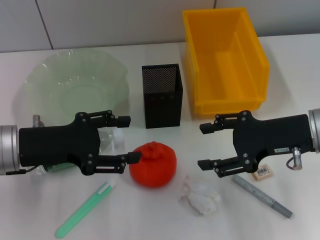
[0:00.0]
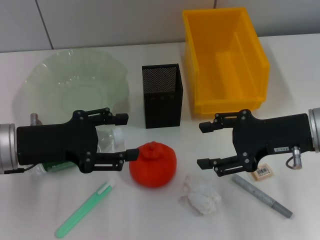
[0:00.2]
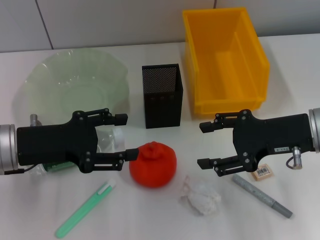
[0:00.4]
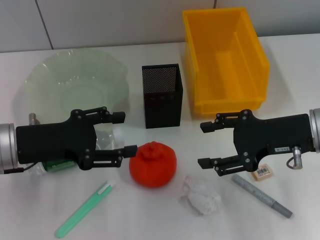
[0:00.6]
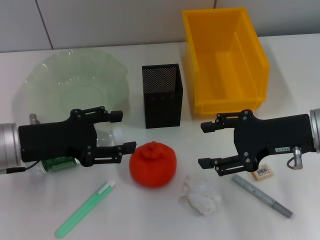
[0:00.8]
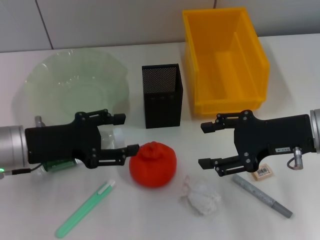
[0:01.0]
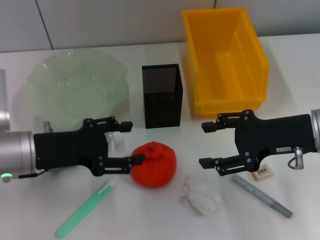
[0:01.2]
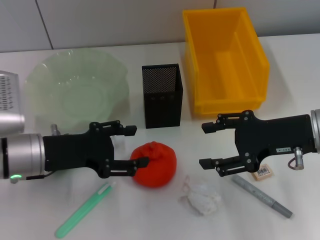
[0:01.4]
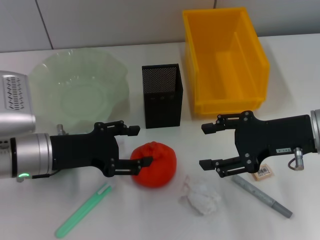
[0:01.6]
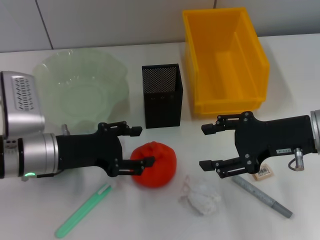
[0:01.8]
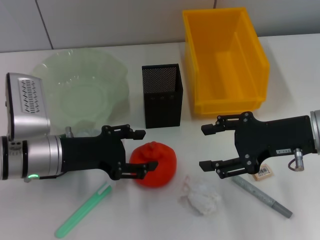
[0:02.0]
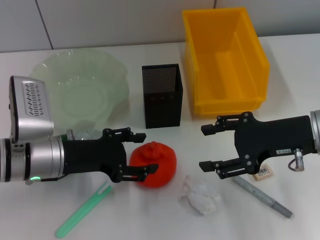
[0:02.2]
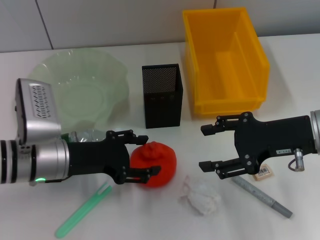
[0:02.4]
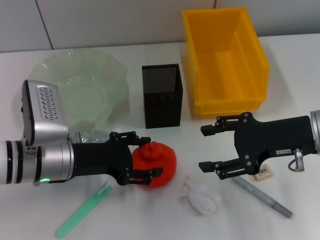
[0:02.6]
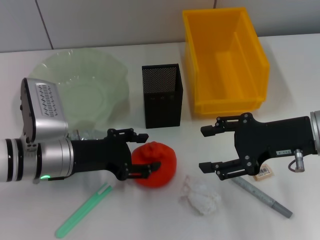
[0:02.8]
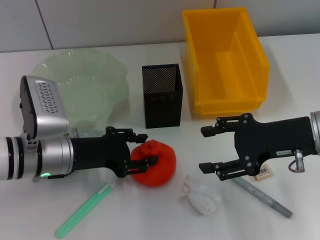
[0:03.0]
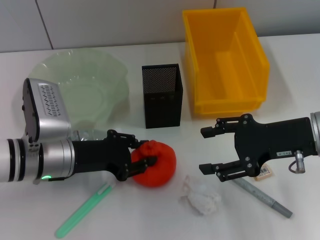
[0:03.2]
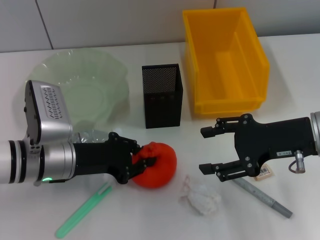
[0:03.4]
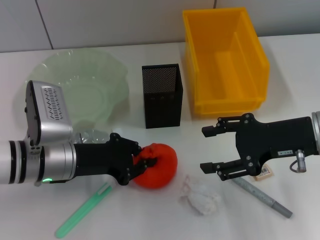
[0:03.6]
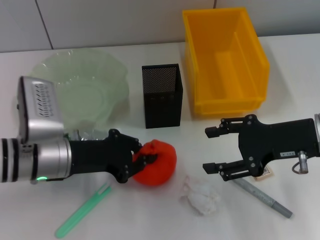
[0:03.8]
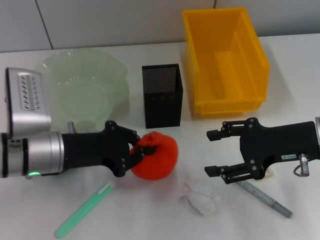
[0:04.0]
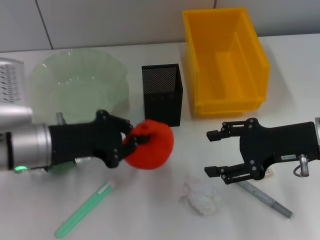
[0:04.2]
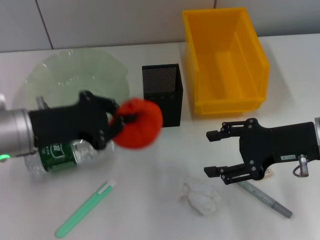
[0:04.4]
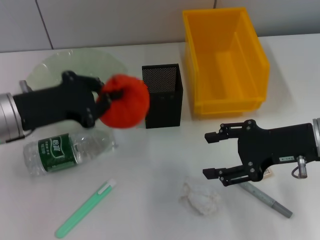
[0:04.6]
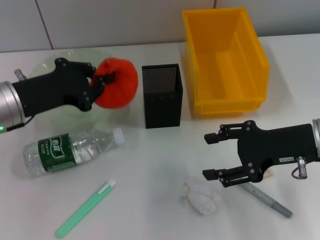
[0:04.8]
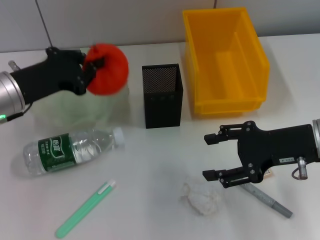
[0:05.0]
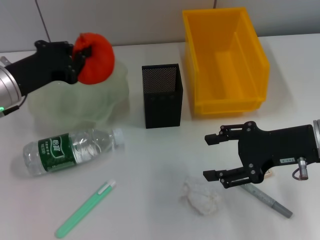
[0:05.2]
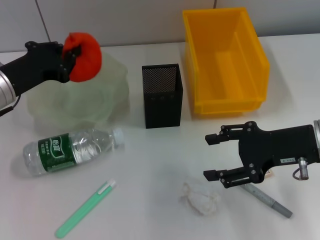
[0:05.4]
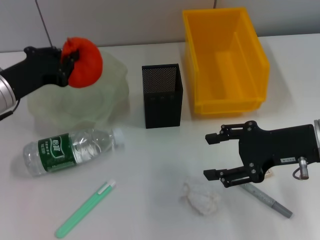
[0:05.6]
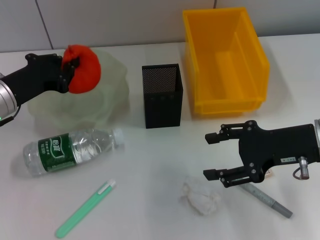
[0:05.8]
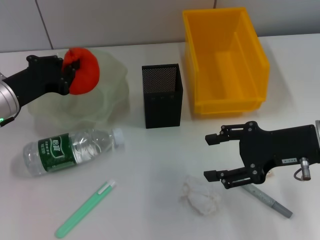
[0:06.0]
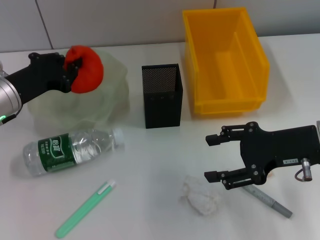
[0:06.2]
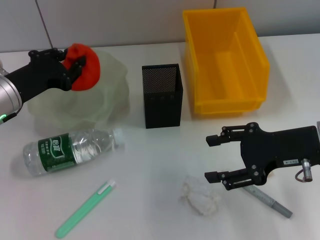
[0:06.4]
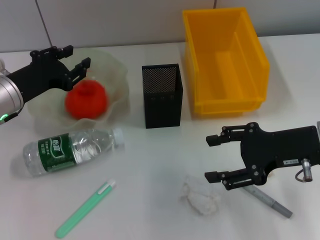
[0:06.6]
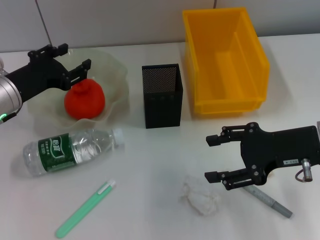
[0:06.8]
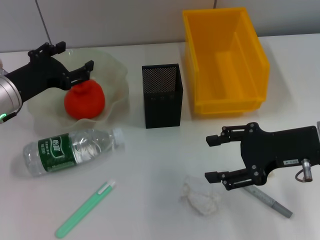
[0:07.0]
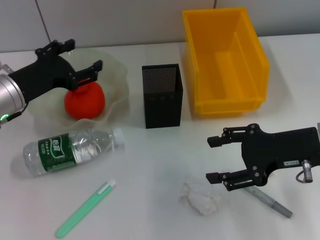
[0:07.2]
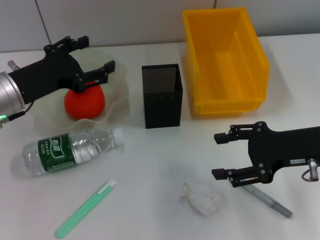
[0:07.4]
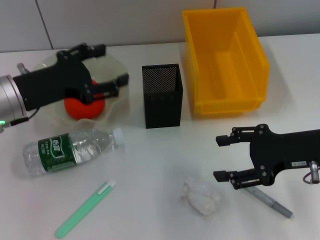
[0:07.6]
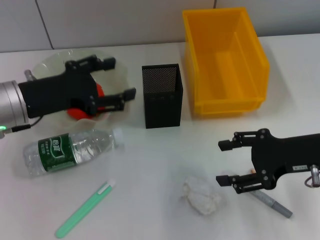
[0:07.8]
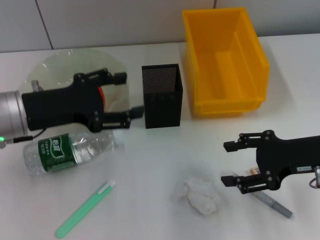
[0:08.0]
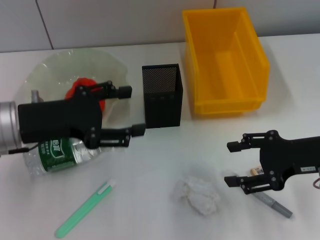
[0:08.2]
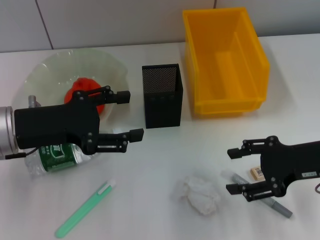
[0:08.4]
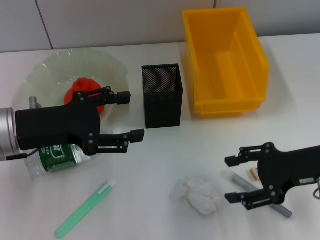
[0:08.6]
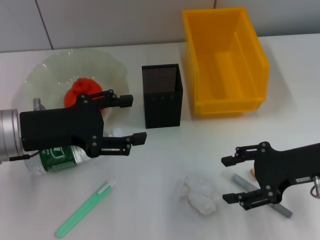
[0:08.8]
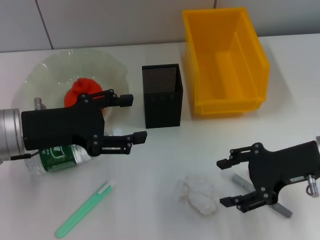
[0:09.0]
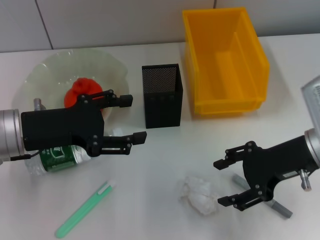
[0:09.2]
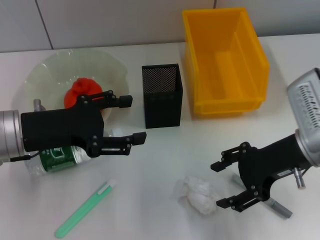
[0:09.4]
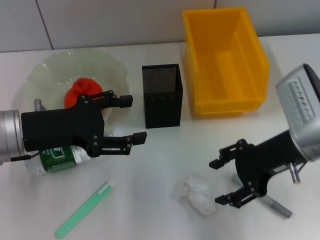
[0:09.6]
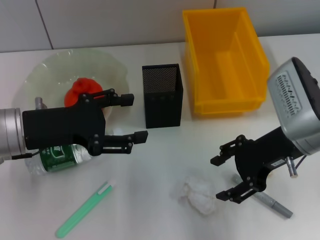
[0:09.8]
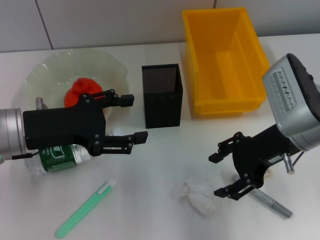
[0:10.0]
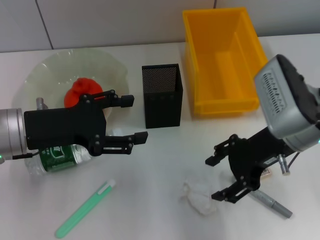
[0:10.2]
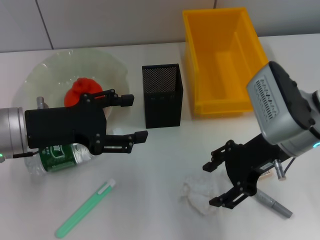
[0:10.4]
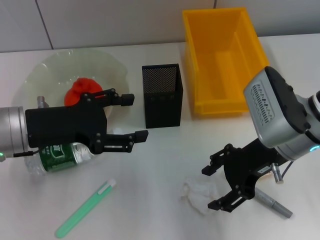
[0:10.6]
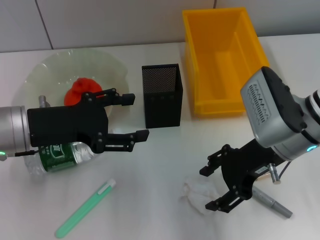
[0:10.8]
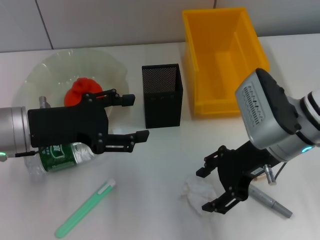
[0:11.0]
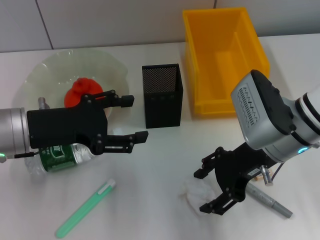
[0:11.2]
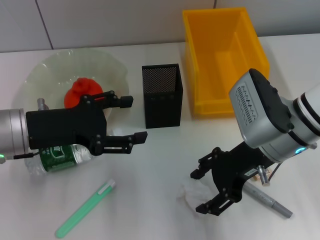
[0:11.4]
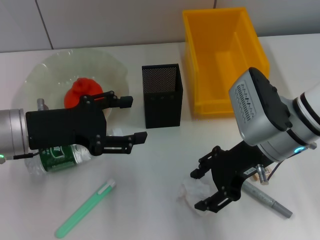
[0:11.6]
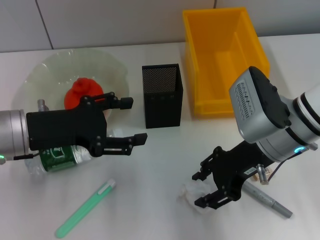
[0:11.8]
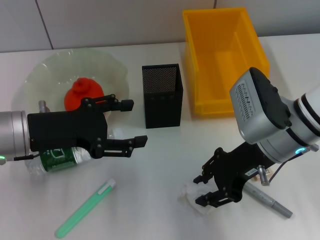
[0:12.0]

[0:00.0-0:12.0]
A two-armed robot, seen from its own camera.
Step, 0:00.0 to 0:03.4: Grab the orange with the left hand.
Step, 0:03.6 to 0:06.6: Place the orange into the fruit bowl with the left hand.
0:00.0 to 0:01.6: The grippers move only a little.
0:01.6 to 0:03.0: The grippers move only a little.
0:03.0 to 0:04.4: The left gripper goes roughly 5 cm upward, and closes up.
0:04.4 to 0:06.0: The left gripper heads forward, covering about 5 cm.
0:06.0 to 0:07.6: The left gripper ends up some 5 cm from where it was, and opens.
0:07.6 to 0:09.0: The grippers make only small movements.
0:09.0 to 0:10.4: The right gripper shifts some 5 cm to the left.
0:10.4 to 0:12.0: The grippers stay close to where they were, moving slightly.

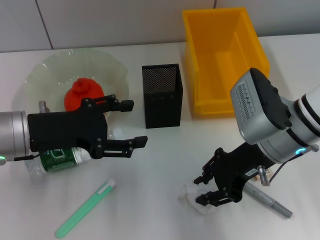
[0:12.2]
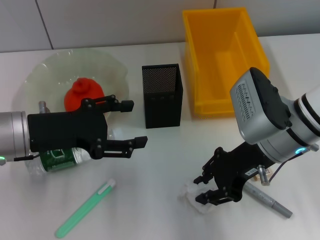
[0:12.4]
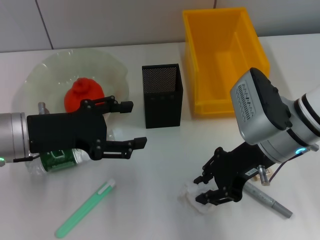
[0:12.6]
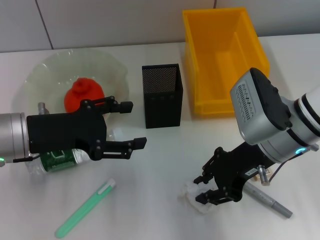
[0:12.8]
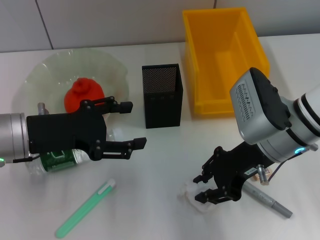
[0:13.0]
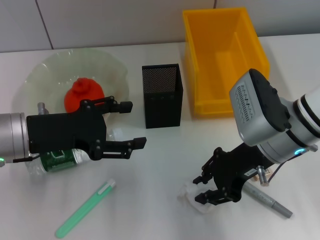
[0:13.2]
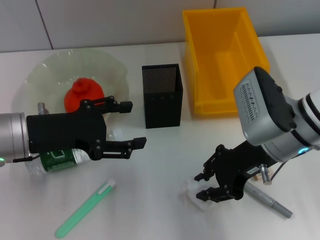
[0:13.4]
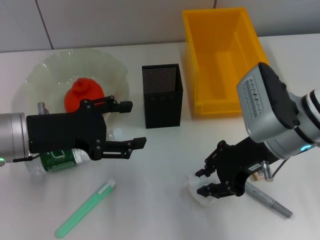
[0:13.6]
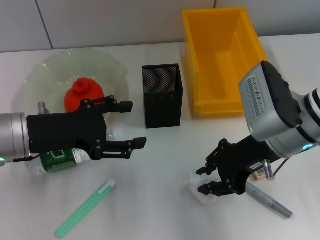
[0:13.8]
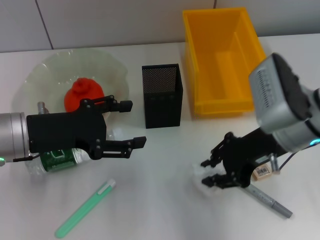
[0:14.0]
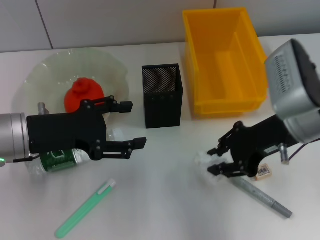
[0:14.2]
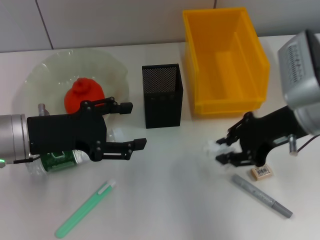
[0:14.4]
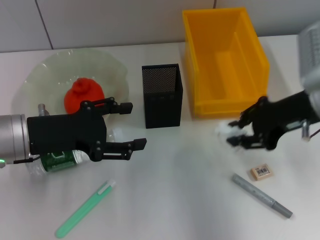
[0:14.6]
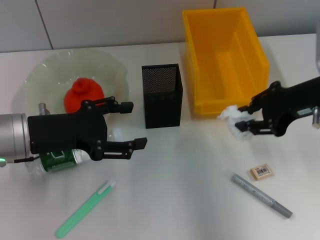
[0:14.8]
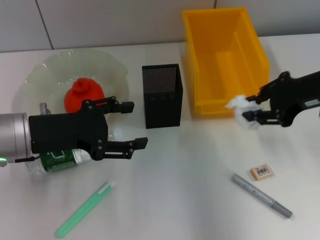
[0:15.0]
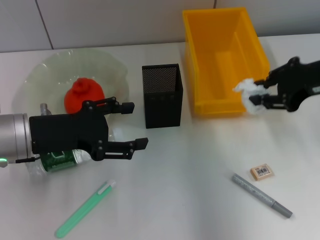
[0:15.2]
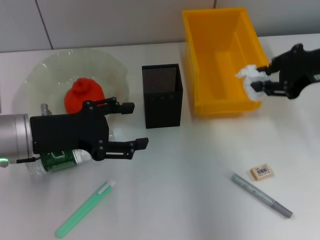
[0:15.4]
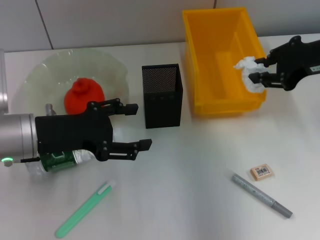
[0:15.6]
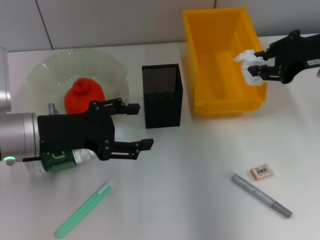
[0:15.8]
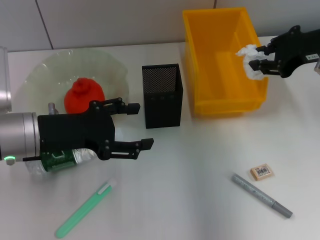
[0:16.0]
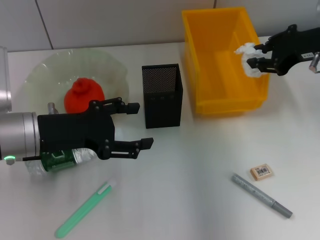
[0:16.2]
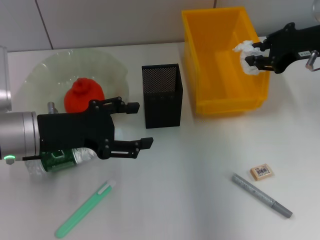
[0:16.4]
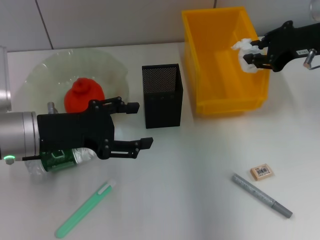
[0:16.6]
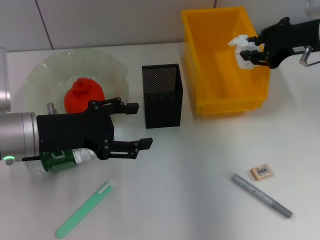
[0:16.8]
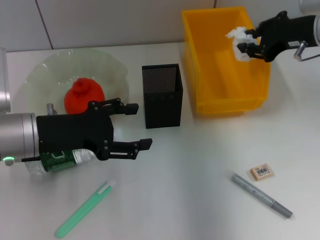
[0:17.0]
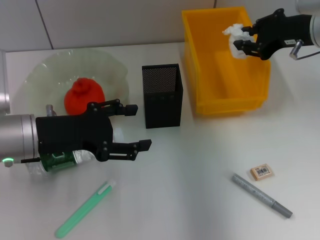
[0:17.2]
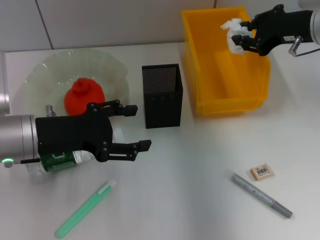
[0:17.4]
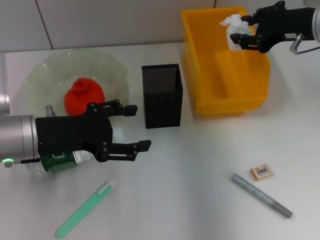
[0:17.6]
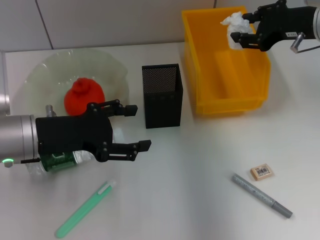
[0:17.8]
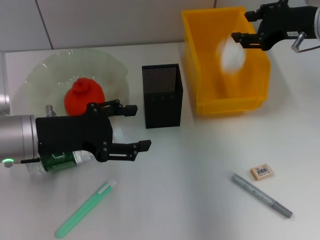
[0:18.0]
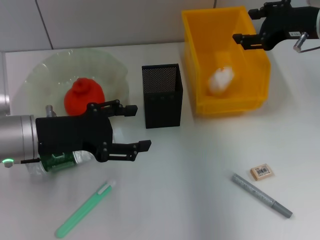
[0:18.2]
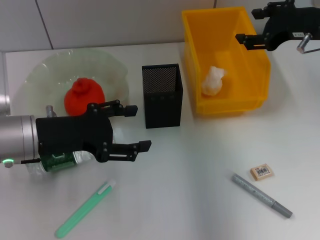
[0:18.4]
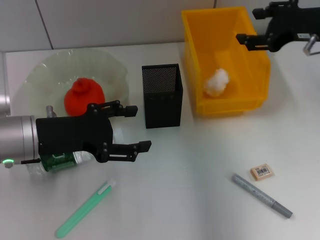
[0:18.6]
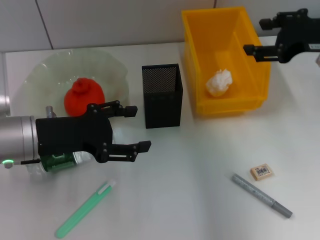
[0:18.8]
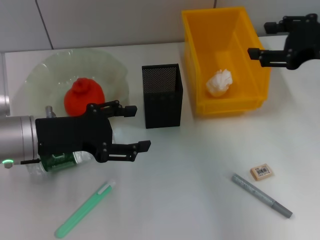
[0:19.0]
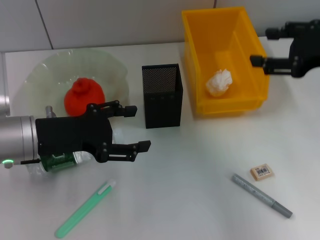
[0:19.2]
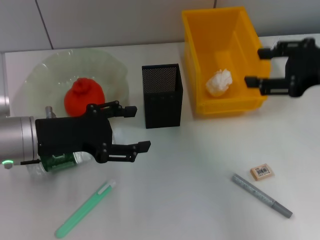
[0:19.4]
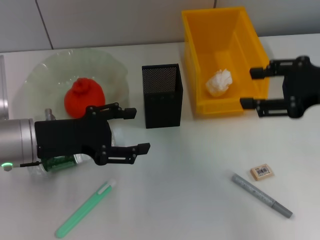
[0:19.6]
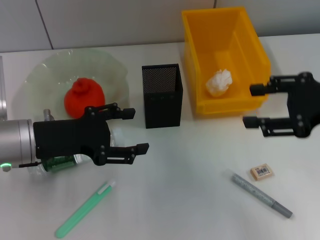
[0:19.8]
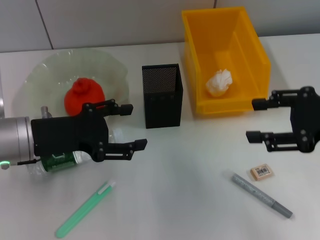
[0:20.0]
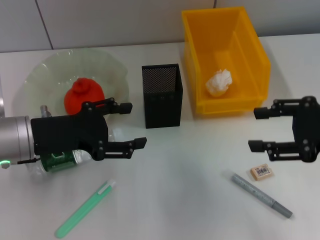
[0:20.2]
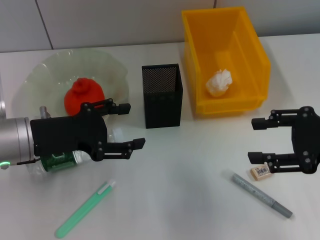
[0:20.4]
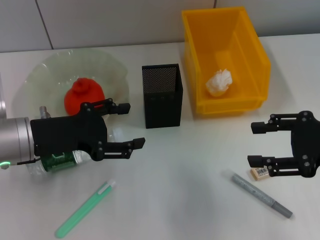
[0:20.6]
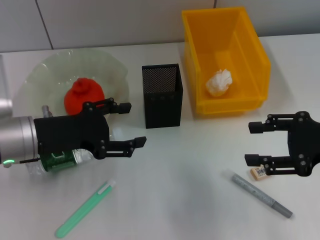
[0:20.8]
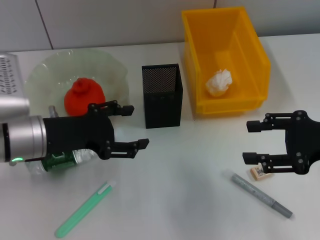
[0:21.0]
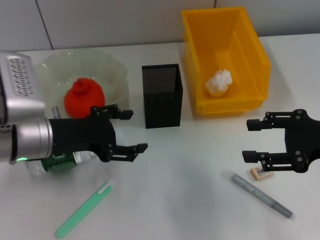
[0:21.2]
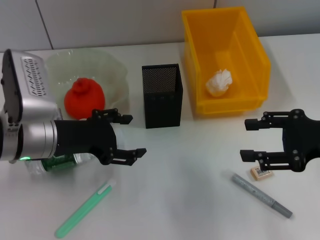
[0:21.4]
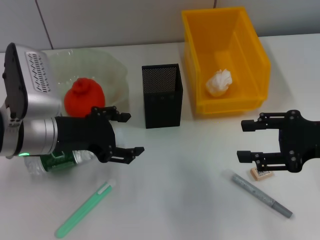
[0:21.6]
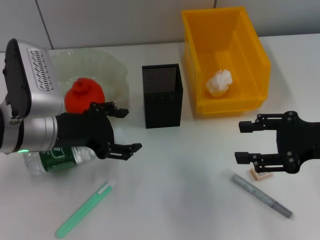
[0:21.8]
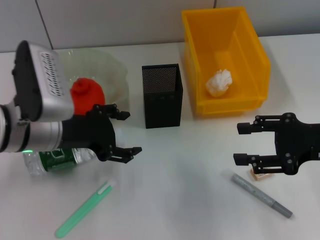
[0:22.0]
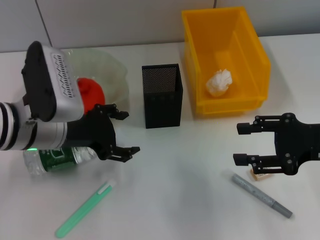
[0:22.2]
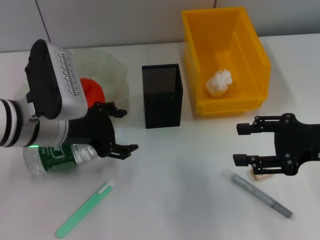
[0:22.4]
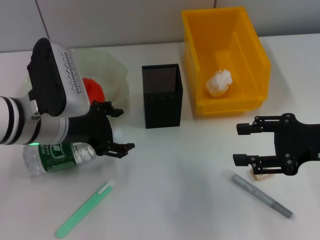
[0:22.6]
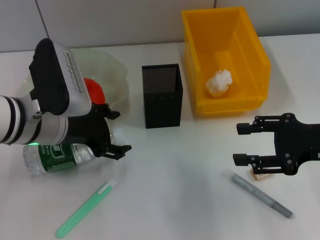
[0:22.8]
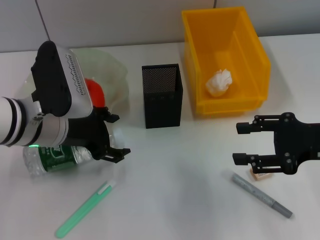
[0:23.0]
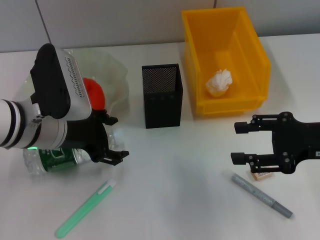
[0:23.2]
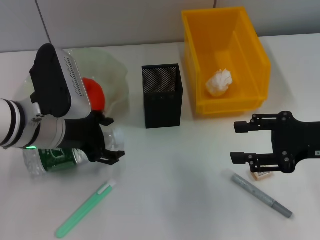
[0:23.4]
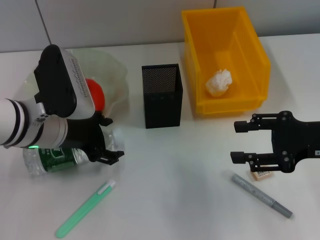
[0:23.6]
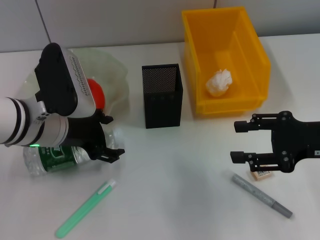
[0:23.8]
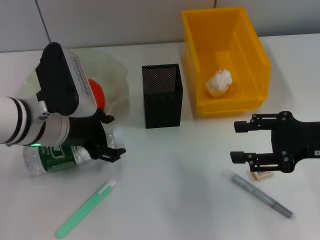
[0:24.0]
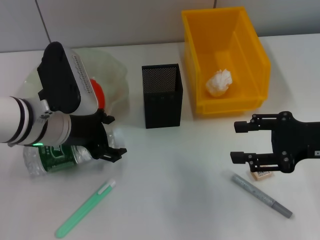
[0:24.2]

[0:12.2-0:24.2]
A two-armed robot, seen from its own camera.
Step, 0:12.6 to 0:18.6: Place the paper ball into the trash can with the right hand.
0:12.2 to 0:13.8: Both grippers stay put.
0:13.8 to 0:15.2: The right gripper goes approximately 10 cm to the right and upward.
0:15.2 to 0:16.6: The right gripper shifts approximately 5 cm forward.
0:16.6 to 0:18.2: The right gripper opens up.
0:18.2 to 0:19.8: The right gripper heads backward, covering about 15 cm.
0:19.8 to 0:21.2: The right gripper changes place by approximately 5 cm.
0:22.6 to 0:24.2: The grippers stay close to where they were, moving slightly.
